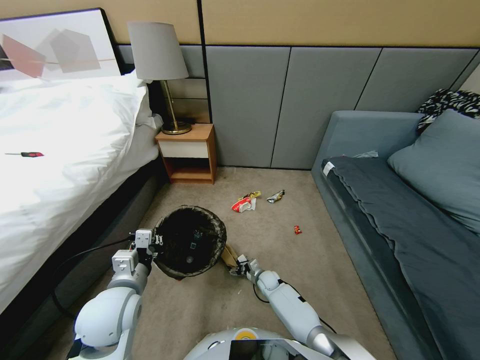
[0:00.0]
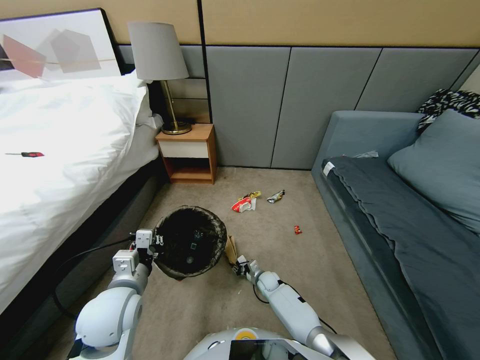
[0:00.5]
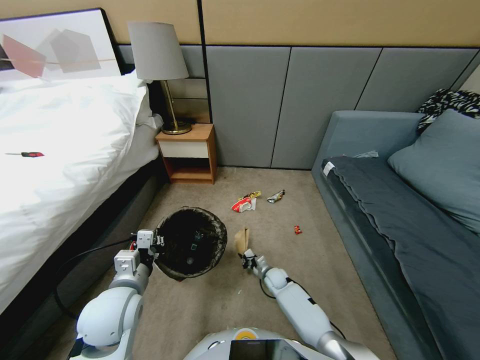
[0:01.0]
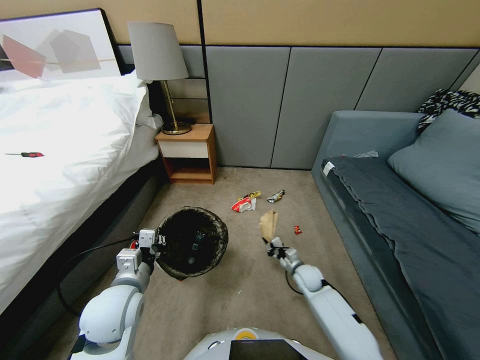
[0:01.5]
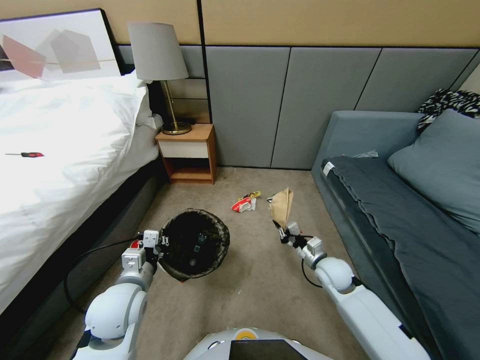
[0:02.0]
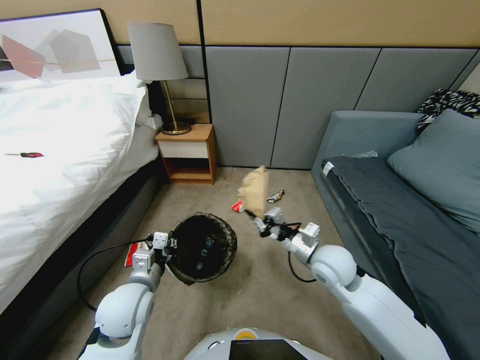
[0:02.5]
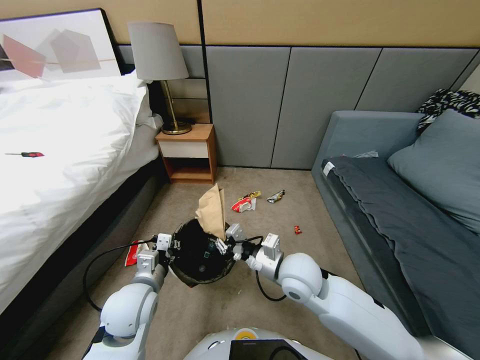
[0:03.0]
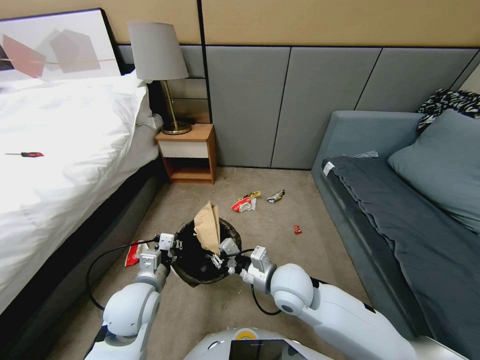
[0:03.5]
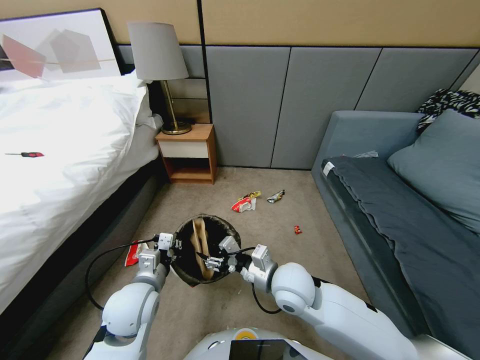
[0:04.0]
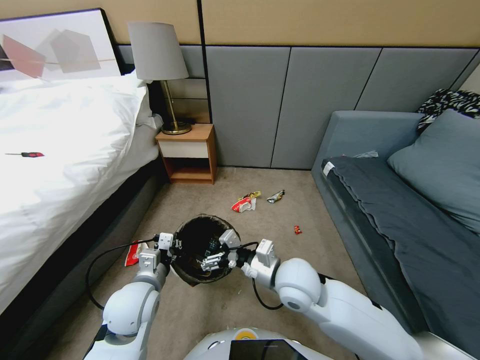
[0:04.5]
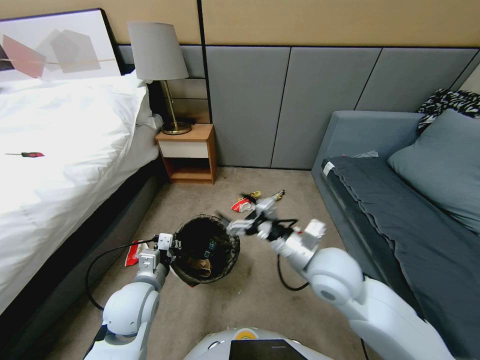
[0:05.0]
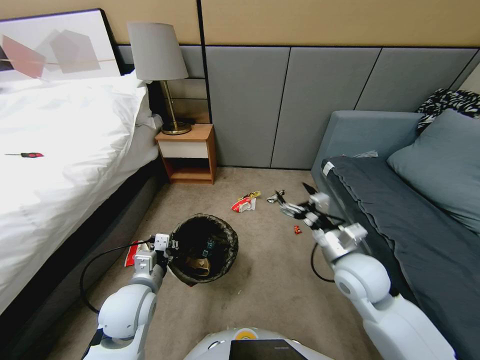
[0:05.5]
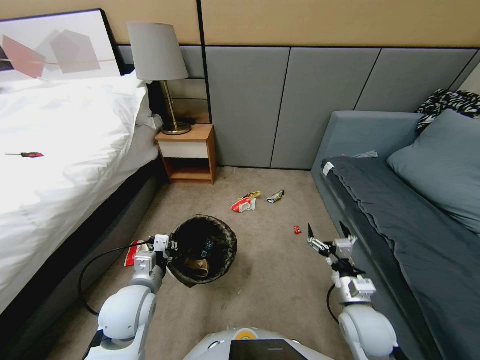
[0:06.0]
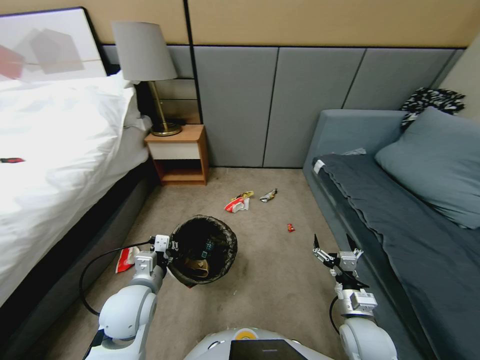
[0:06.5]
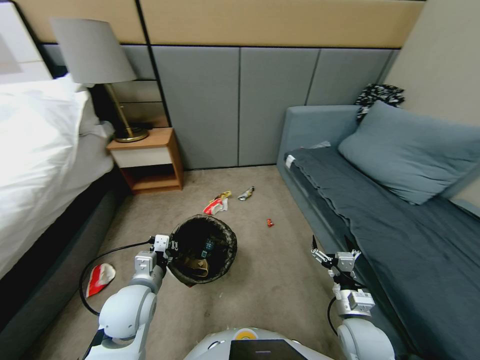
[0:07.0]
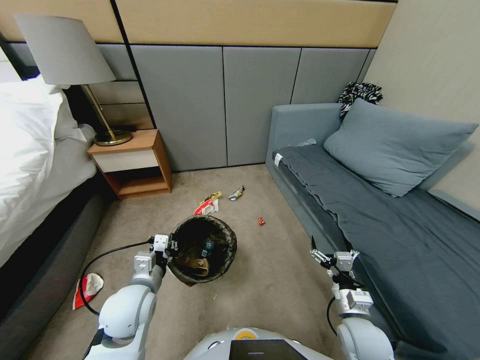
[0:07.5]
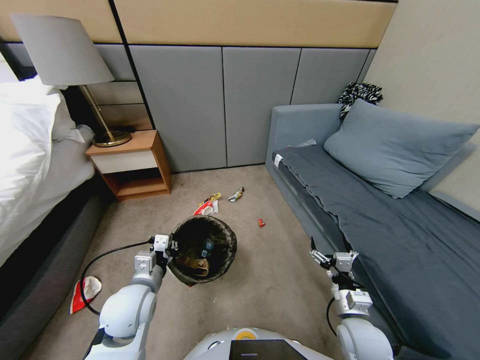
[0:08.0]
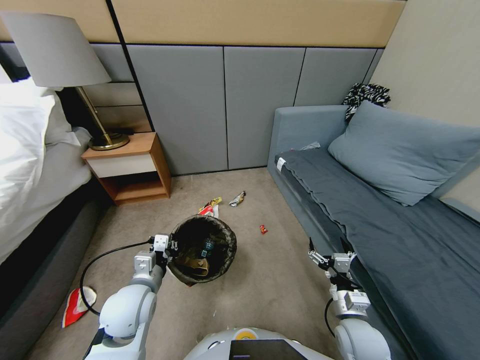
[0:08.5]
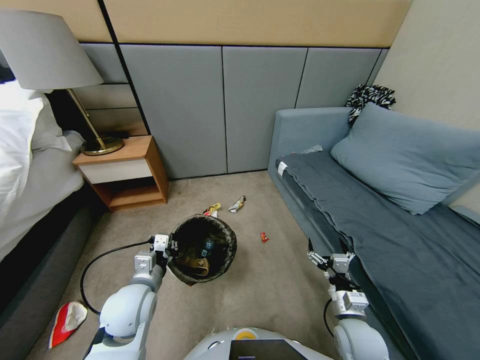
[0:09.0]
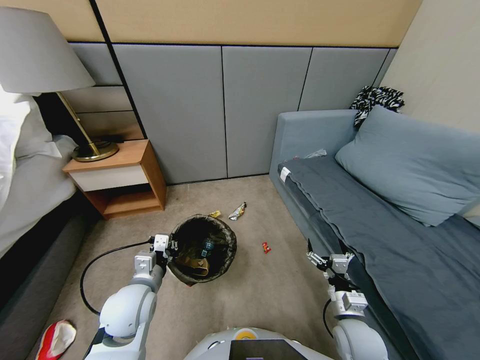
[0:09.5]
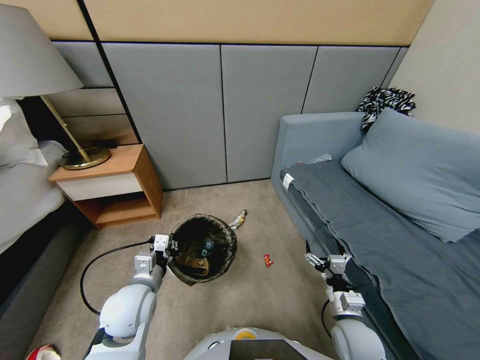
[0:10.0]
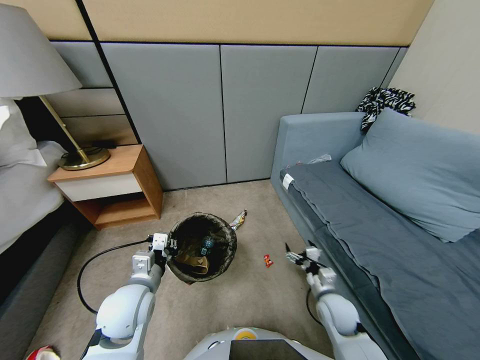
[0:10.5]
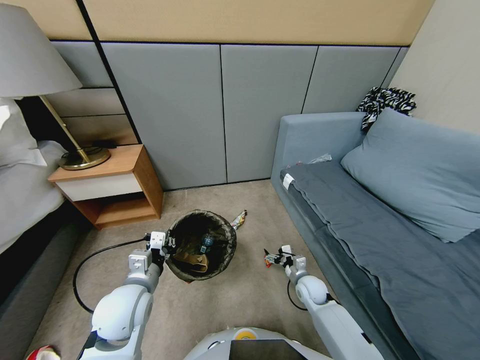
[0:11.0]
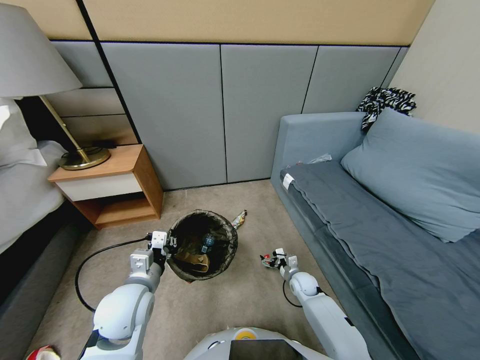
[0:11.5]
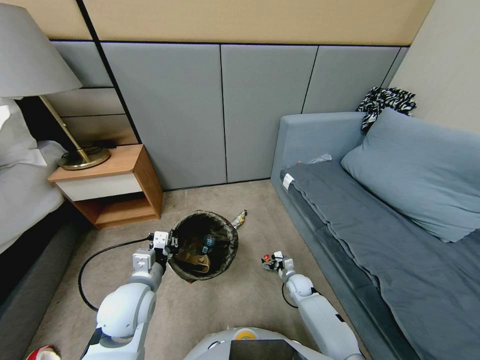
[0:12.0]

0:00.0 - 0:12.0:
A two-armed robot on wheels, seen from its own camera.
Task of the whole recording: Pick up the trash bin, then pick up the garbage from the floor and place it into the trash bin.
0:00.0 - 0:02.0: The right gripper moves upward and to the right, about 30 cm, and closes.
0:02.0 - 0:04.0: The right gripper heads to the left, upward and backward, covering approximately 20 cm, and opens its fingers.
0:04.0 - 0:06.0: The right gripper heads to the right, downward and backward, covering about 20 cm.
0:10.0 - 0:12.0: The right gripper heads downward and forward, covering approximately 25 cm.

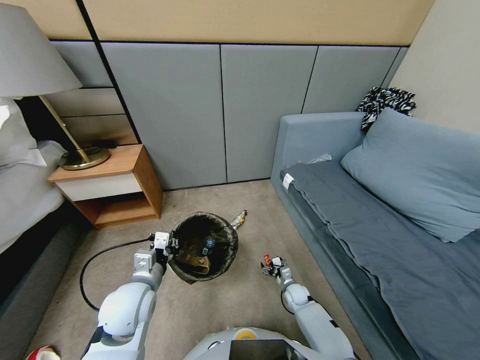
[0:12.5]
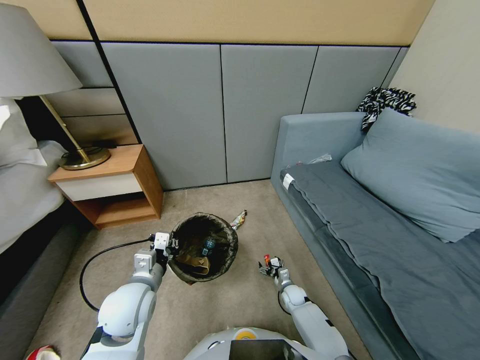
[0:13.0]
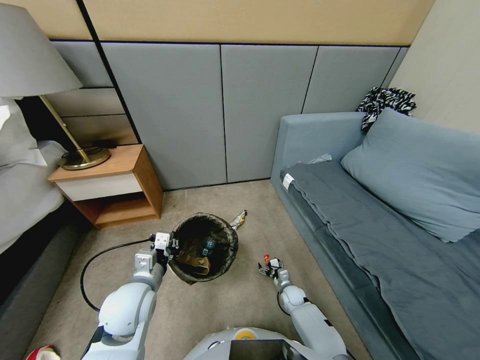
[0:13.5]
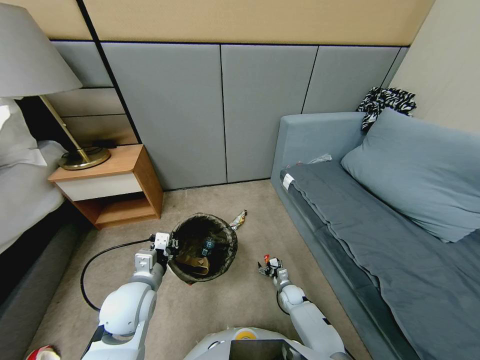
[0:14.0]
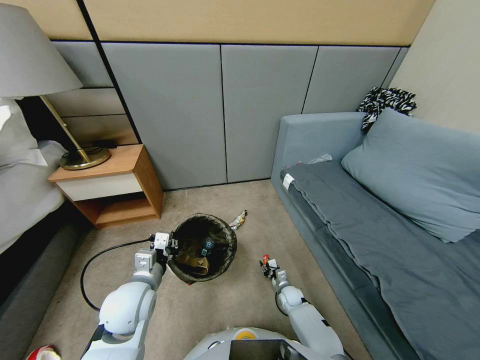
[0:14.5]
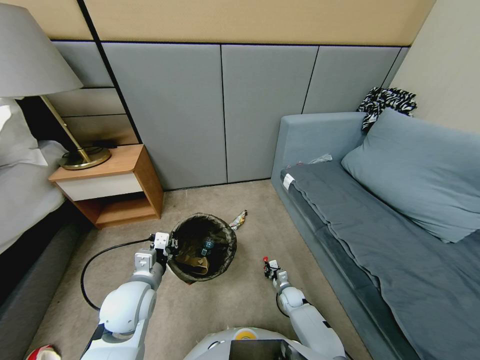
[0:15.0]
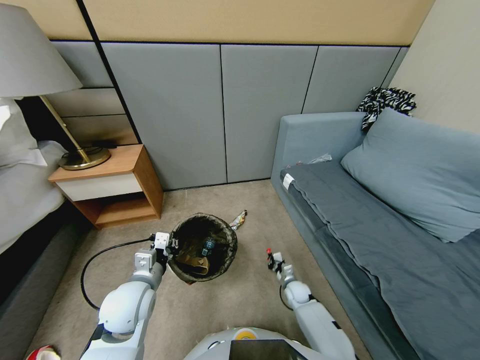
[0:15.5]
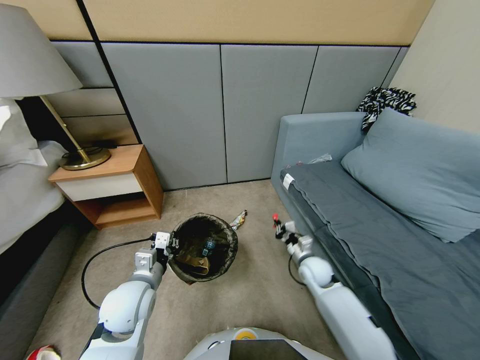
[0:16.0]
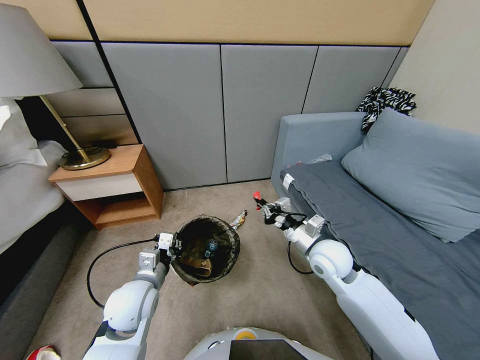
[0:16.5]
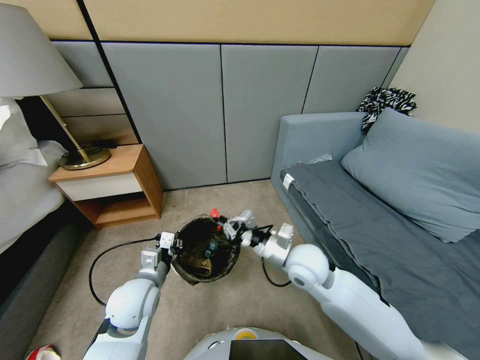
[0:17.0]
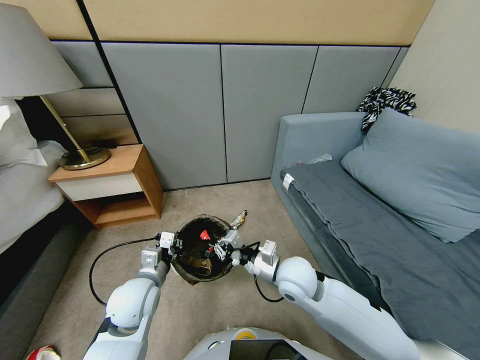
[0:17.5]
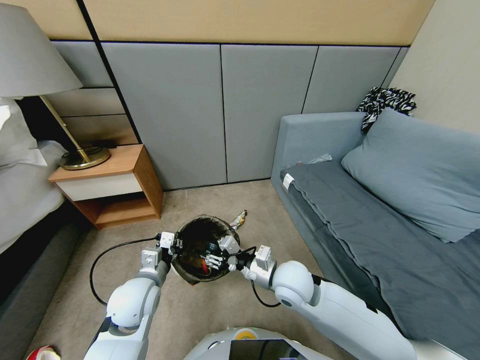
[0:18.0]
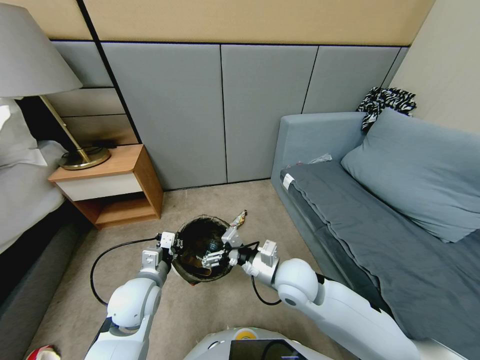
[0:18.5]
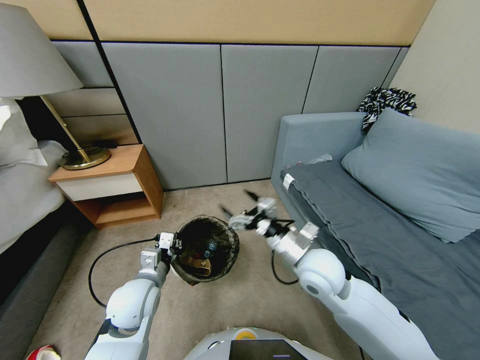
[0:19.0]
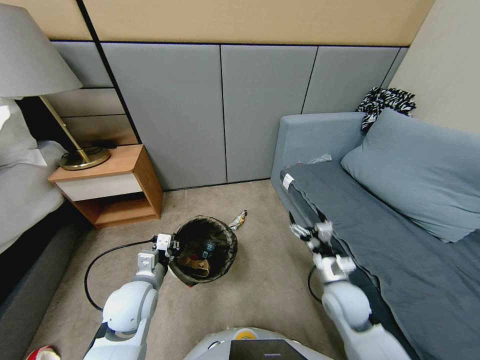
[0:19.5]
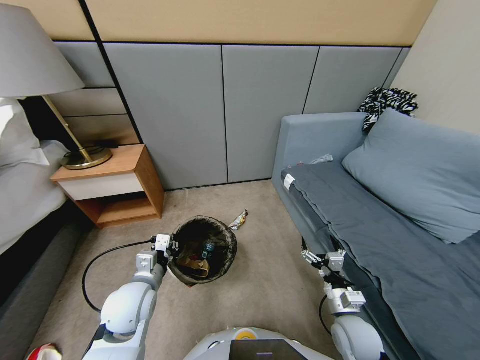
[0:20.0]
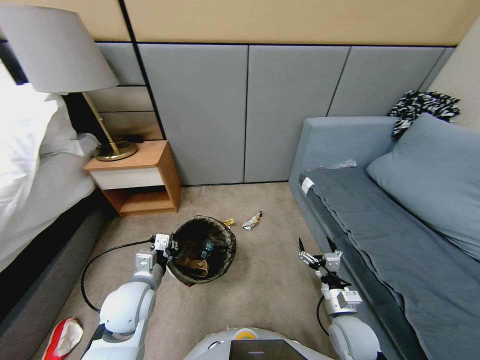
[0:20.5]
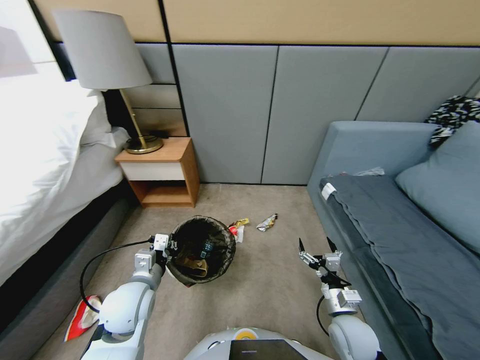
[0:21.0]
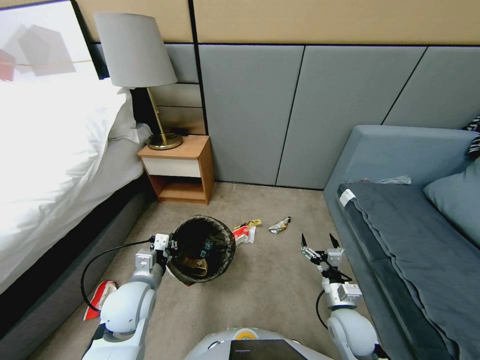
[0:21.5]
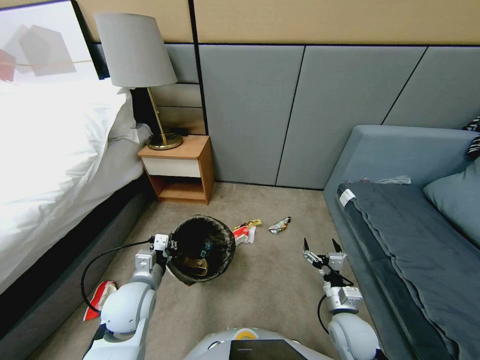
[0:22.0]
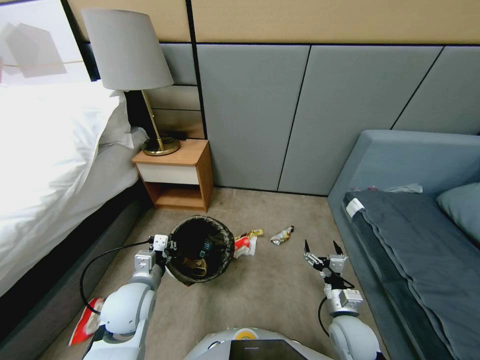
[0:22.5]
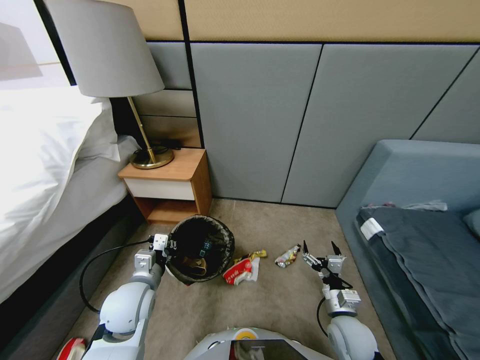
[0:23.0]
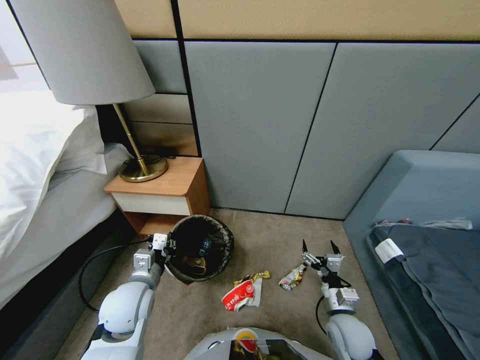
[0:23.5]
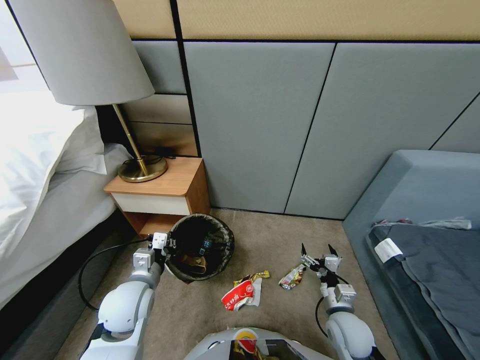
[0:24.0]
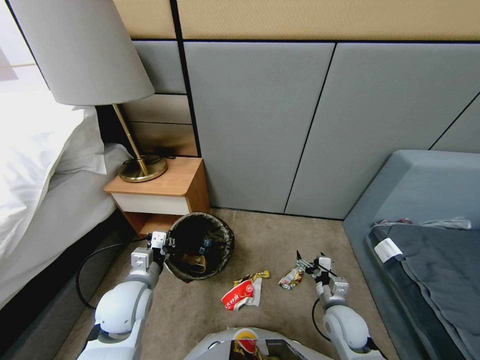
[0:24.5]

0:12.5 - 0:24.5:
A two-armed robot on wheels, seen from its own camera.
Task of the whole recording: Pick up the trash bin, then pick up the garbage from the floor and place it into the trash bin.
0:12.5 - 0:14.5: The right gripper closes its fingers.
0:14.5 - 0:16.5: The right gripper goes about 40 cm upward.
0:16.5 - 0:18.5: The right gripper travels to the left by approximately 5 cm, and opens its fingers.
0:18.5 - 0:20.5: The right gripper travels downward, to the right and backward by approximately 20 cm.

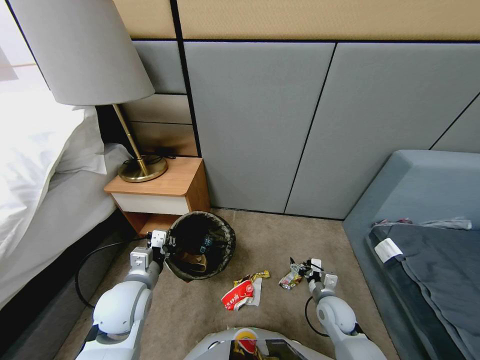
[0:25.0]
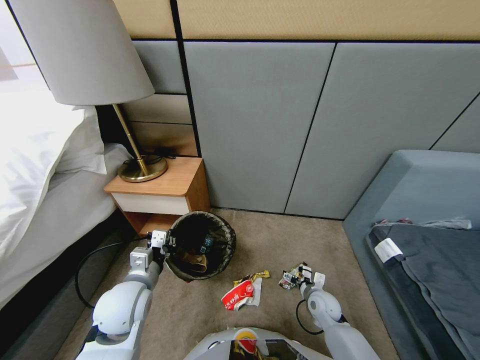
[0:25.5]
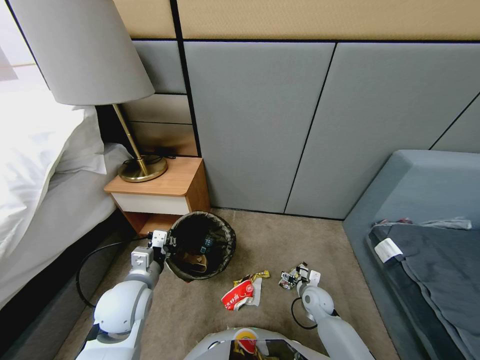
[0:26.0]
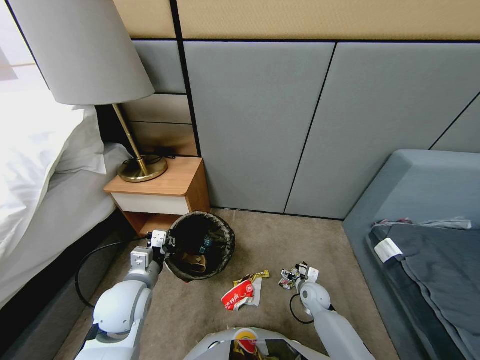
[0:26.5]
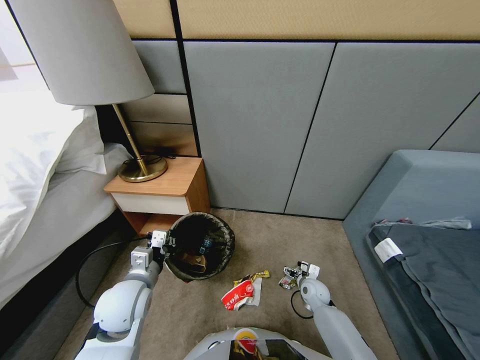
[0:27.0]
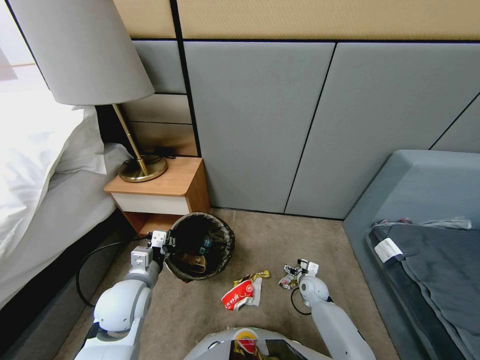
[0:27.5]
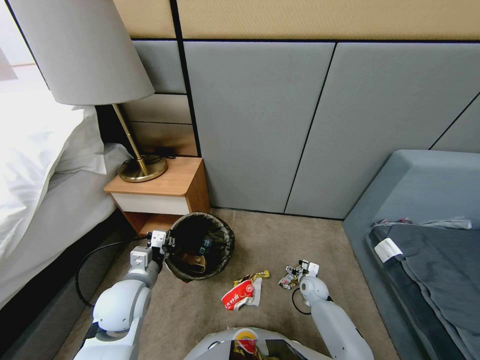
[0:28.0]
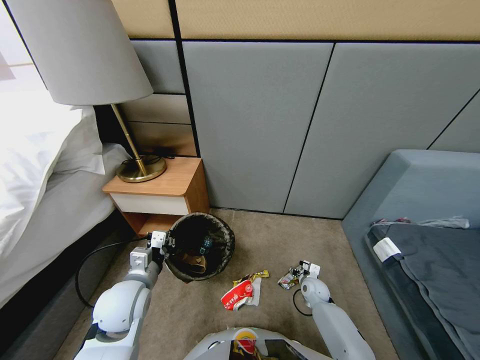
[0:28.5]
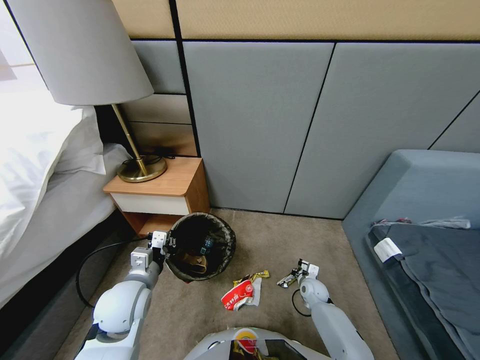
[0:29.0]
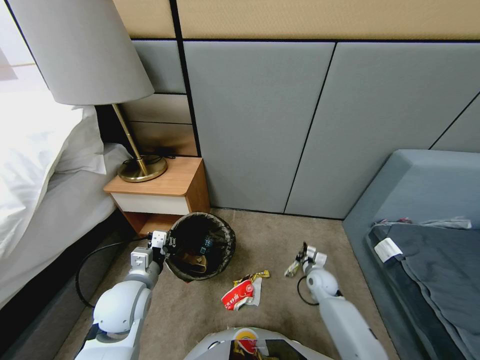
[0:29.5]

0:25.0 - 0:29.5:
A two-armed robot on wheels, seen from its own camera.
Task of the whole recording: Pick up the trash bin, then pick up the garbage from the floor and place it into the trash bin.
0:25.0 - 0:27.0: The right gripper heads forward and downward, covering about 10 cm.
0:27.0 - 0:29.5: The right gripper travels upward by approximately 10 cm, and closes.
